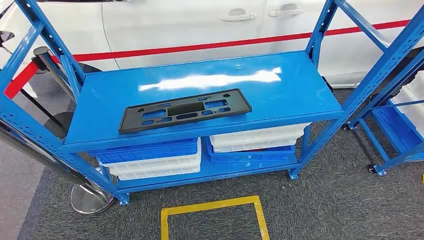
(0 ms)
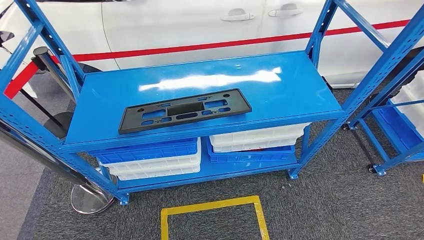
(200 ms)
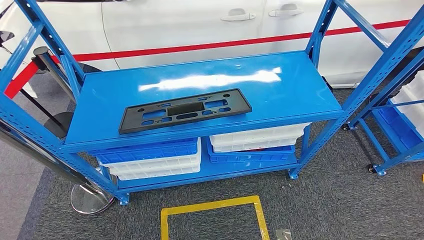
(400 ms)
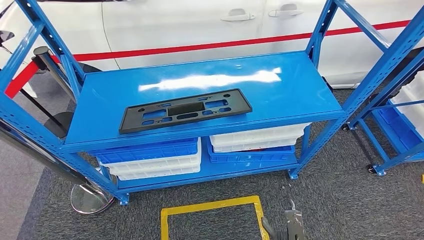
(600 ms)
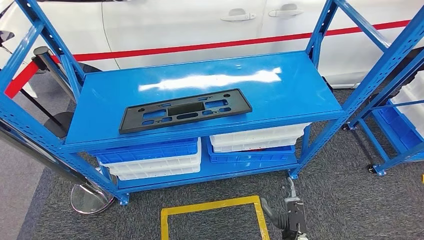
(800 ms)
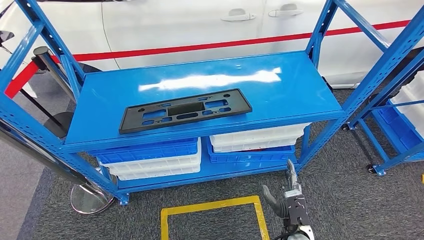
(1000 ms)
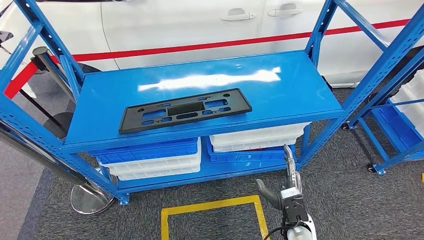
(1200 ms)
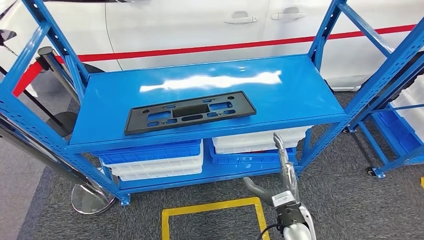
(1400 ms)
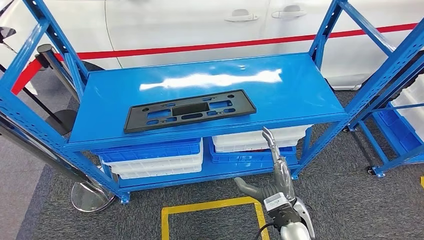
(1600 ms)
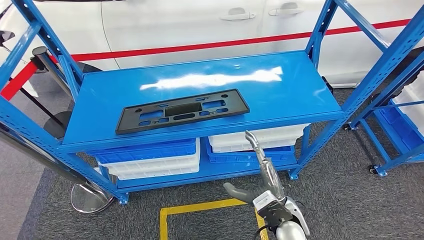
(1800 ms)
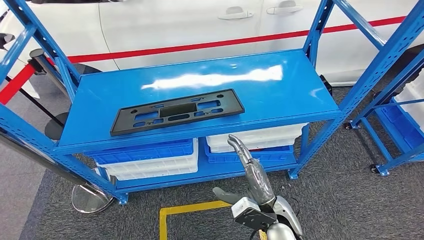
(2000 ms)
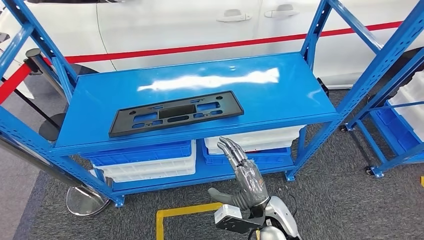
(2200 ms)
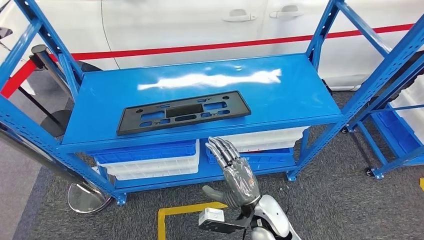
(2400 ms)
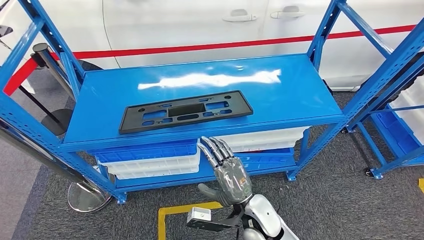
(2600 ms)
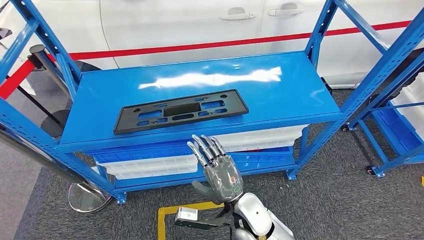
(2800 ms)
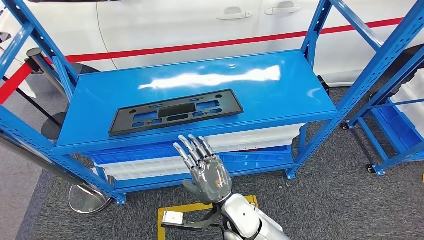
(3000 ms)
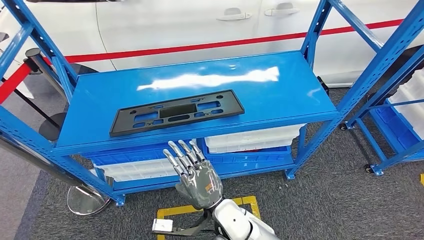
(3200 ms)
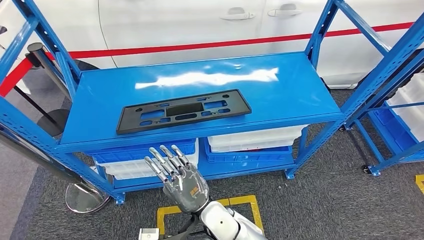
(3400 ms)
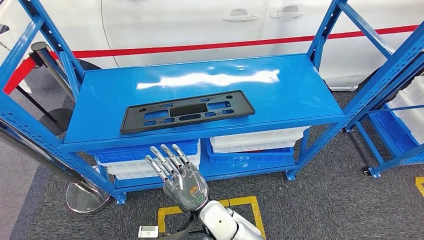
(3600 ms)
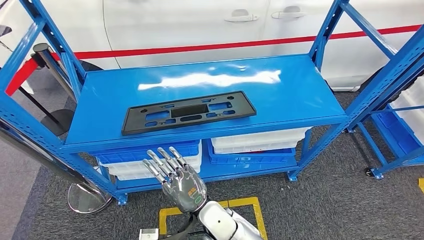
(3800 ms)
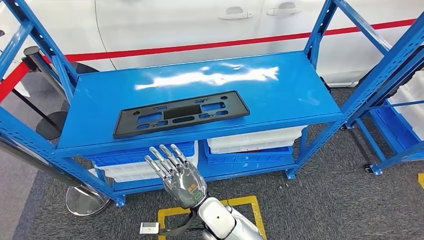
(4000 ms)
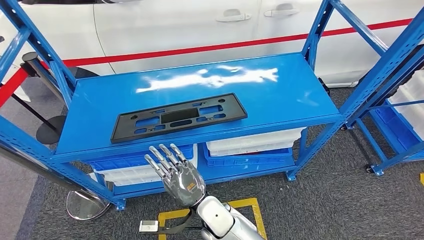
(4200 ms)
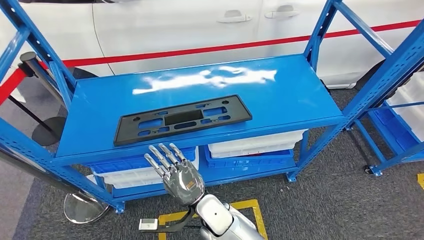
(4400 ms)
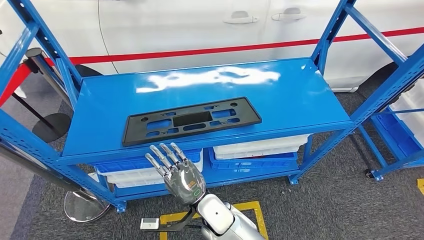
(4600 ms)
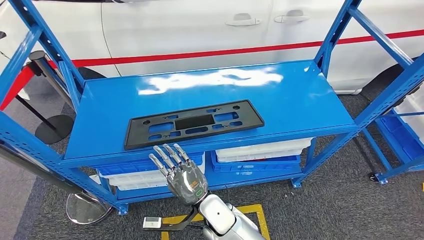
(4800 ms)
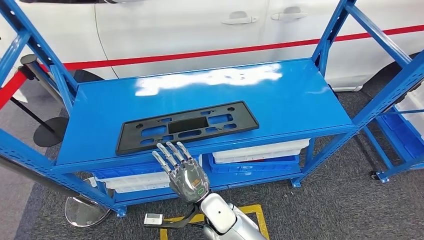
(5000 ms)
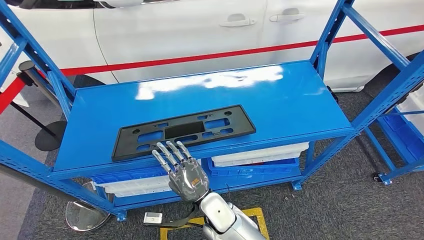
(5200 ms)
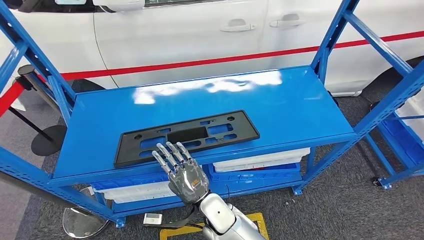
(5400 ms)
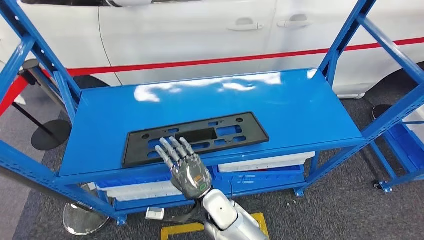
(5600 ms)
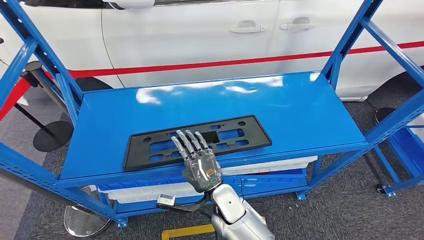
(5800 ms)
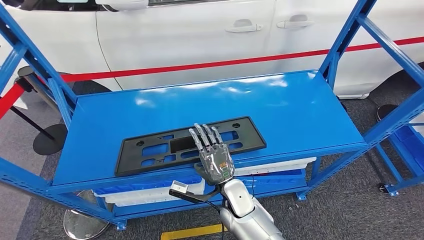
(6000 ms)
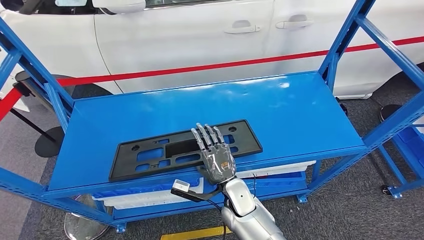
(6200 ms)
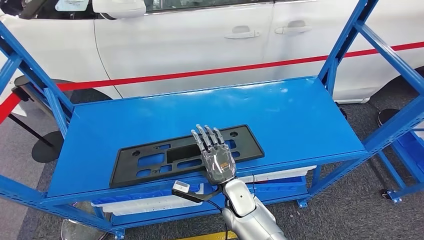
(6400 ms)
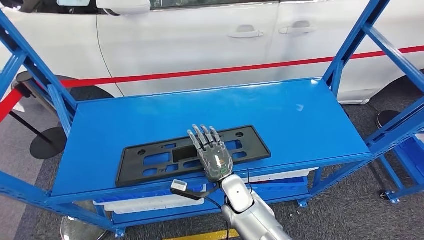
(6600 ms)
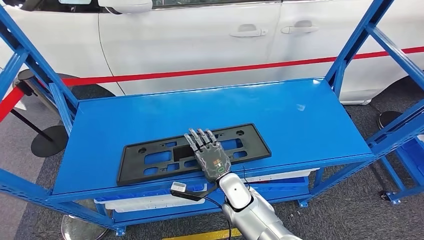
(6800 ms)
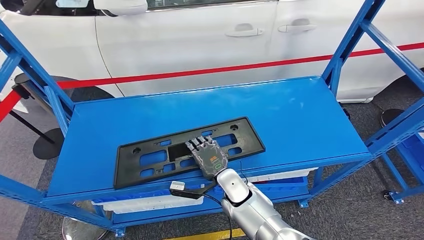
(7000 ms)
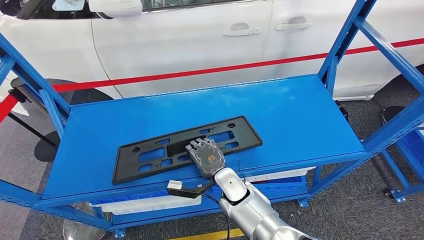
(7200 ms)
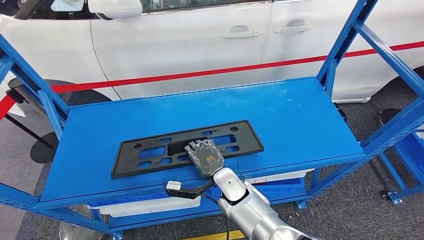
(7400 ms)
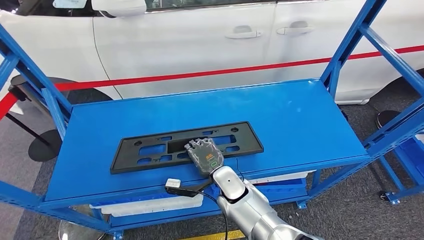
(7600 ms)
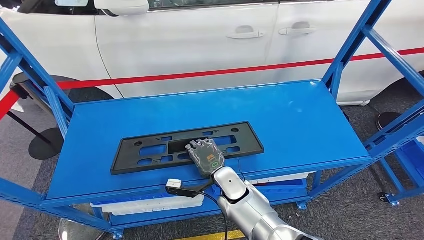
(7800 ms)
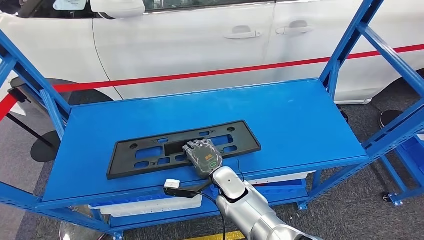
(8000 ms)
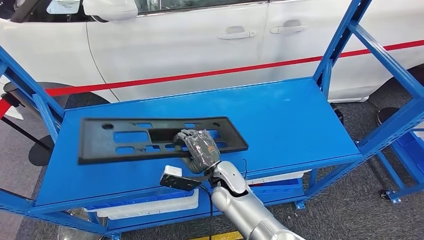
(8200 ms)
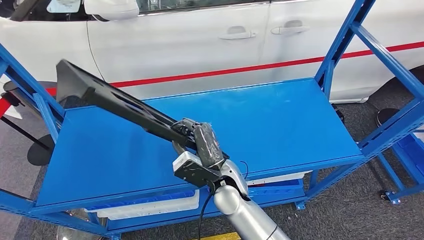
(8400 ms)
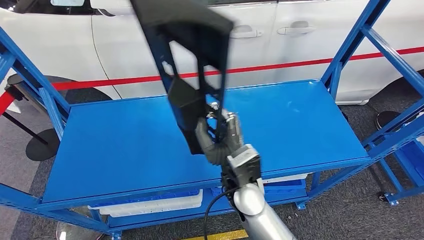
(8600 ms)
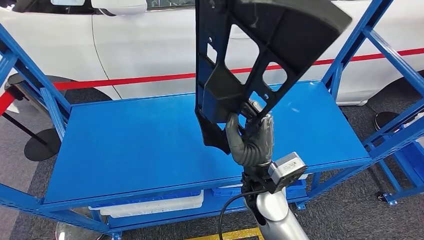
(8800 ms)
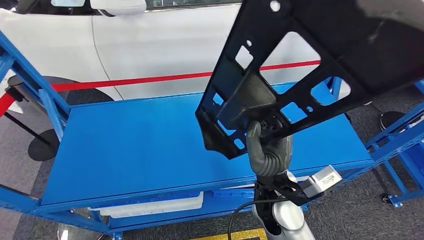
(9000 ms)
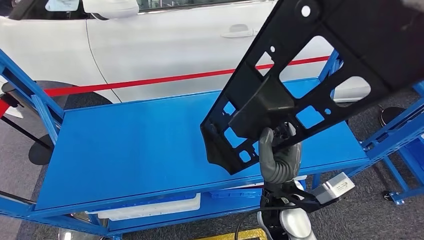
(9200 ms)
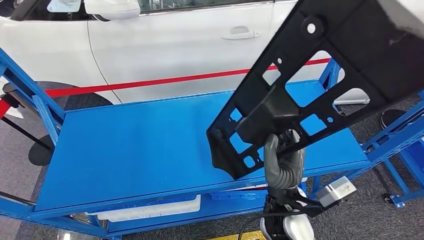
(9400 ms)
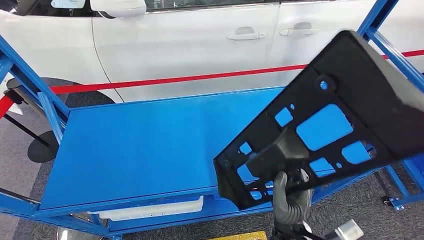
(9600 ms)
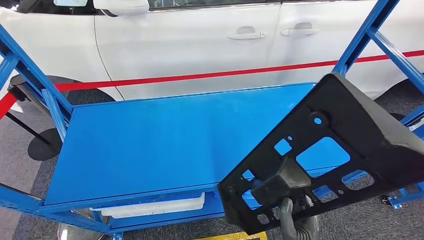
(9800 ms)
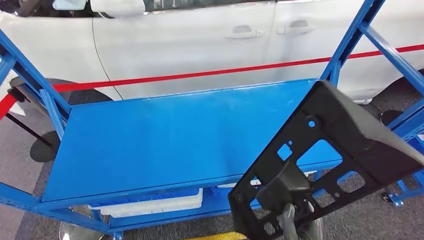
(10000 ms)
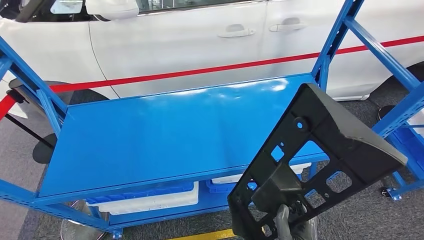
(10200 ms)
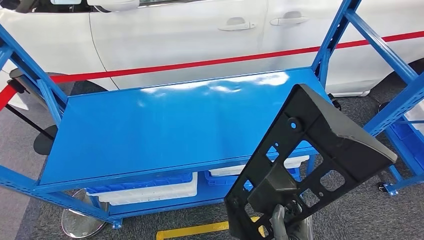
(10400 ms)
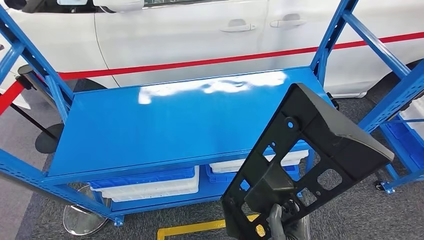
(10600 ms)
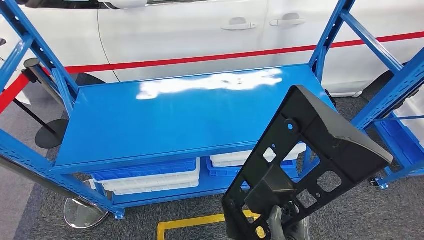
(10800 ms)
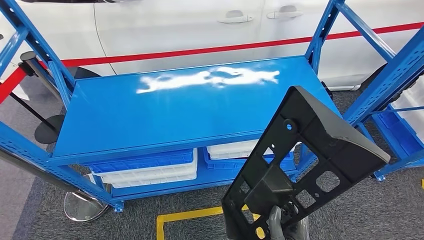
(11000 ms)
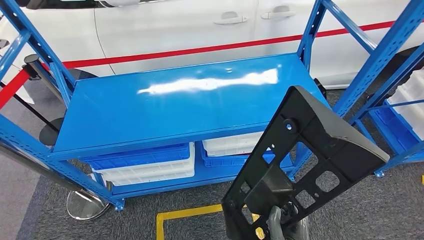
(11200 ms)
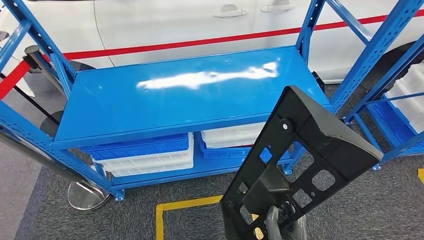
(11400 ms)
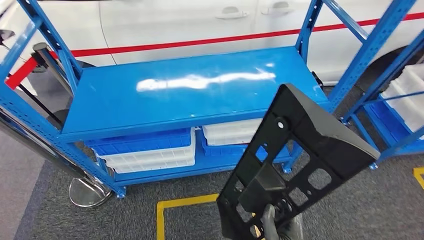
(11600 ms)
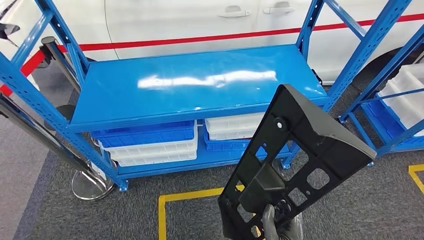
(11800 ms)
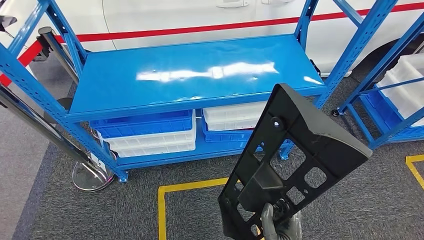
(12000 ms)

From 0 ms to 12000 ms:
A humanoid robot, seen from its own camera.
Step, from 0 ms to 9200 ms: Pick up the large material from the shelf.

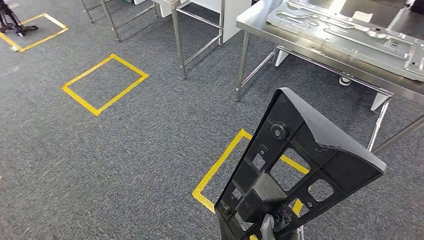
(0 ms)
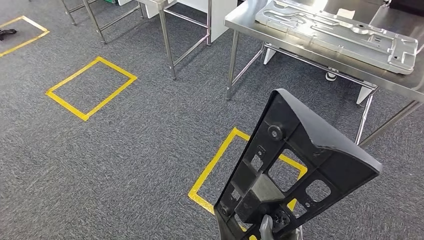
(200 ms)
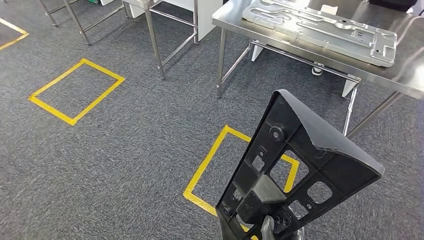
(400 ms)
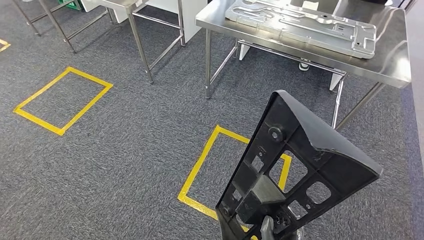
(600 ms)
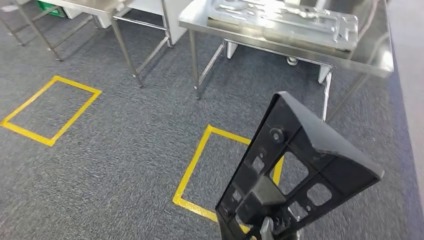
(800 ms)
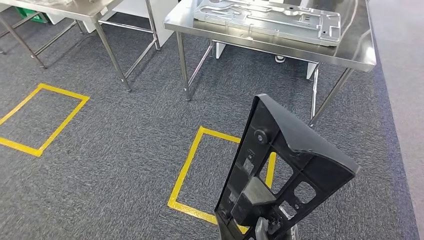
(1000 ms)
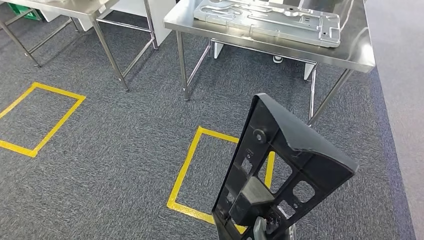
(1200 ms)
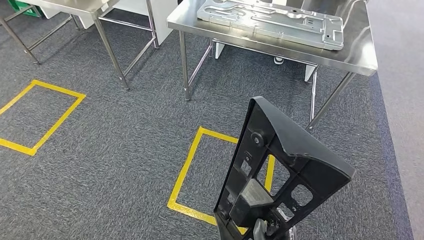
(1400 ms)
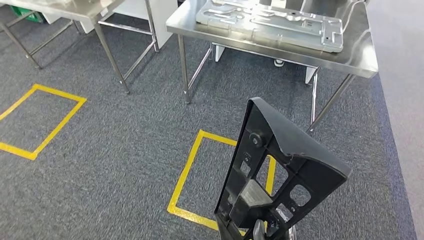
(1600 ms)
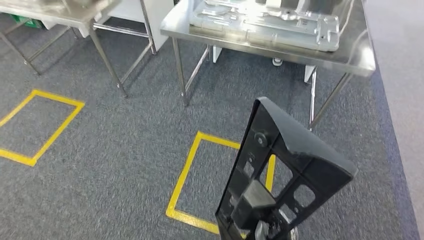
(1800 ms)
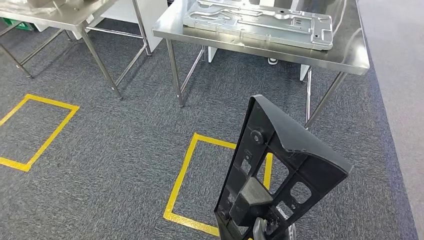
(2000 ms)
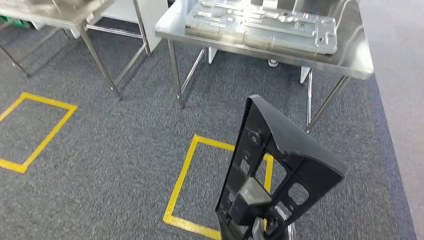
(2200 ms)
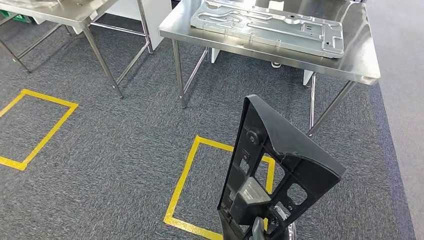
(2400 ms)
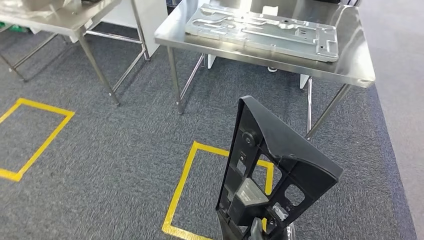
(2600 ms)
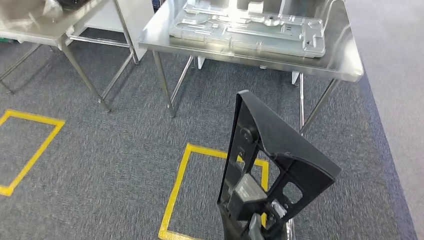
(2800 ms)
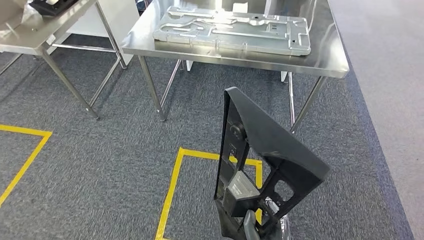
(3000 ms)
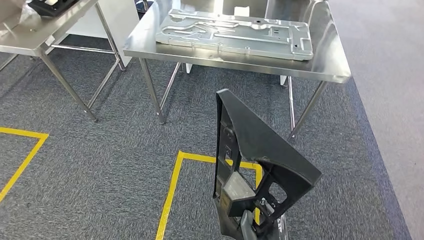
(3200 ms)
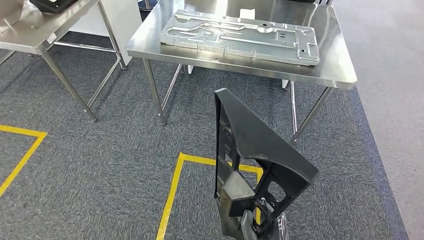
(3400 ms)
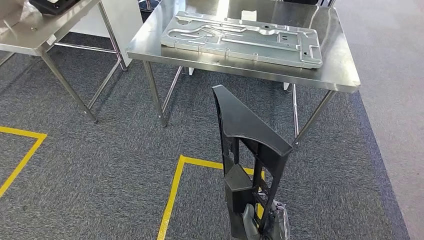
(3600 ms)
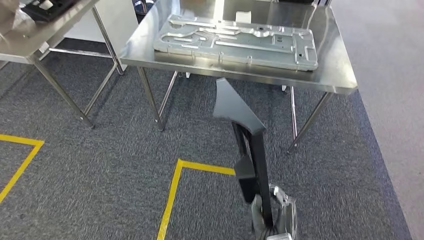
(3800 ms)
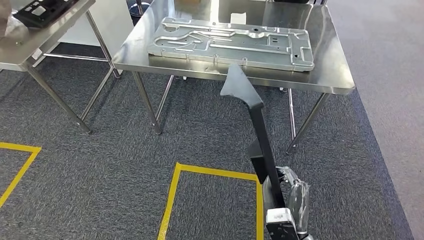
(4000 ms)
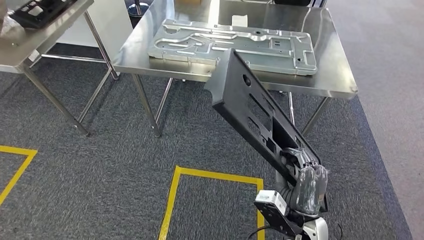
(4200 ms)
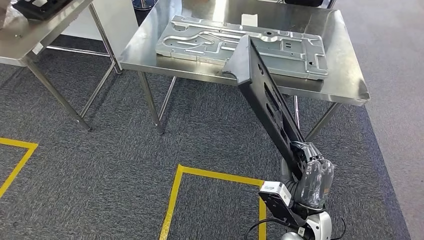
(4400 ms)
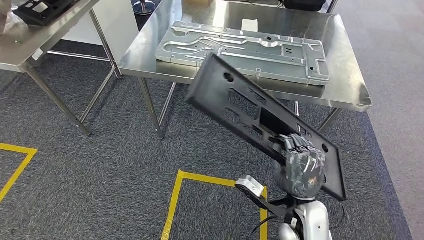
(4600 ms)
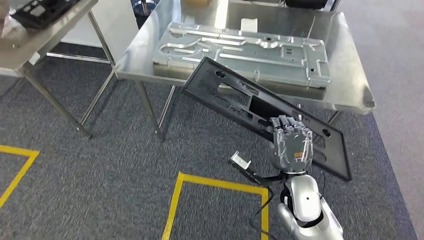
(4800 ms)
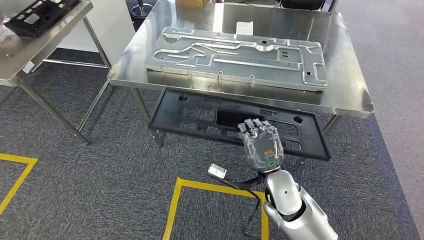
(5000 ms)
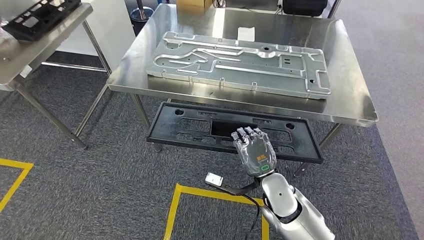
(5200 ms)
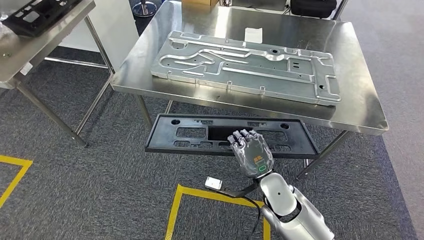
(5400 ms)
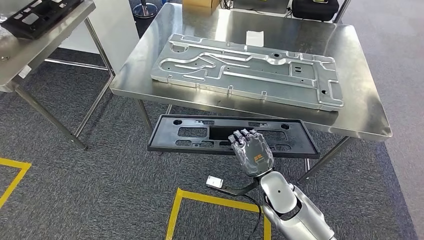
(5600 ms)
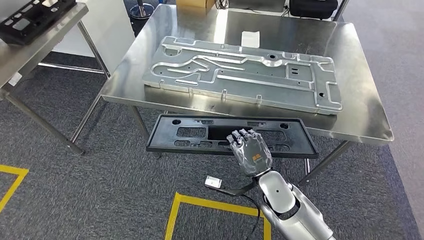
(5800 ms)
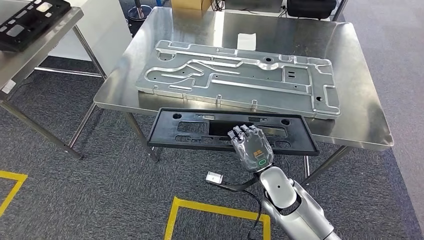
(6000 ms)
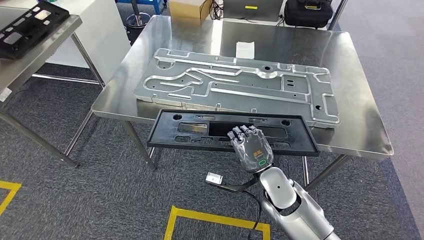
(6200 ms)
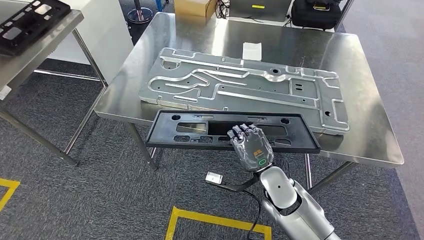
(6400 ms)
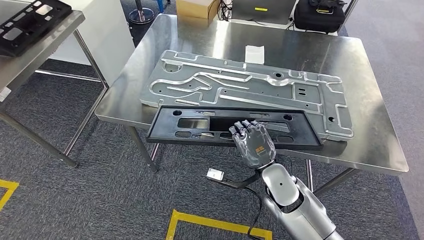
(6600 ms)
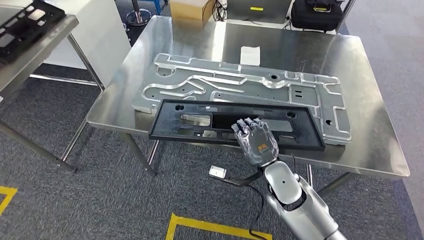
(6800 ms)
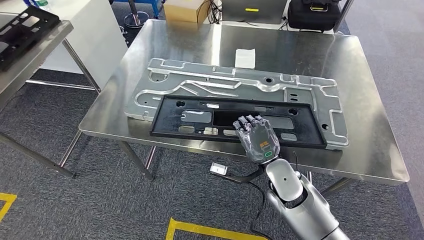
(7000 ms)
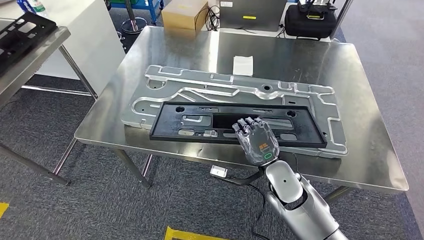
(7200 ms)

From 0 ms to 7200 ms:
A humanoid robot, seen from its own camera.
Step, from 0 ms to 4800 ms: Move the large material to the workbench.
